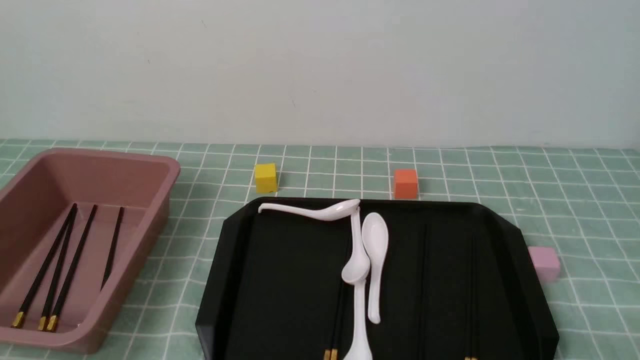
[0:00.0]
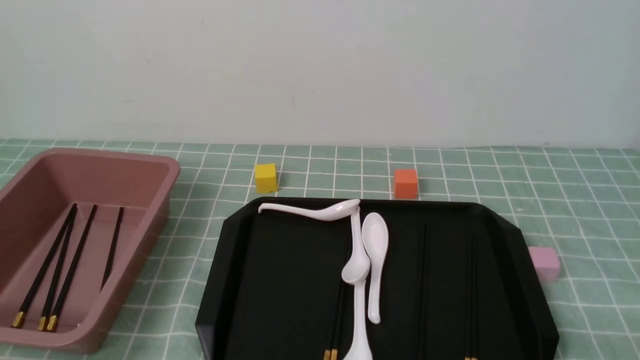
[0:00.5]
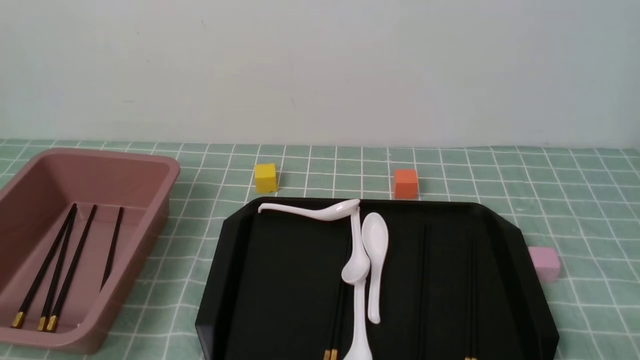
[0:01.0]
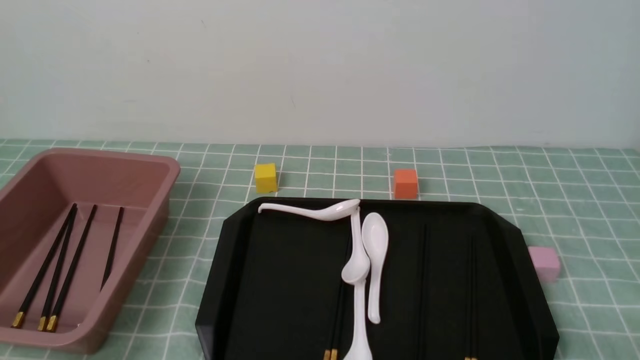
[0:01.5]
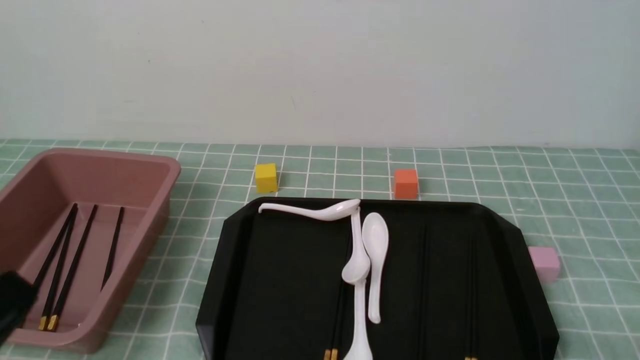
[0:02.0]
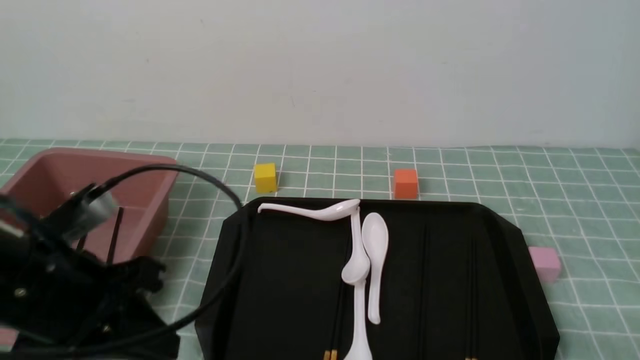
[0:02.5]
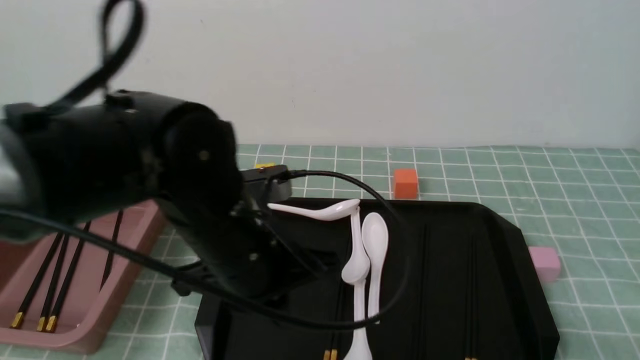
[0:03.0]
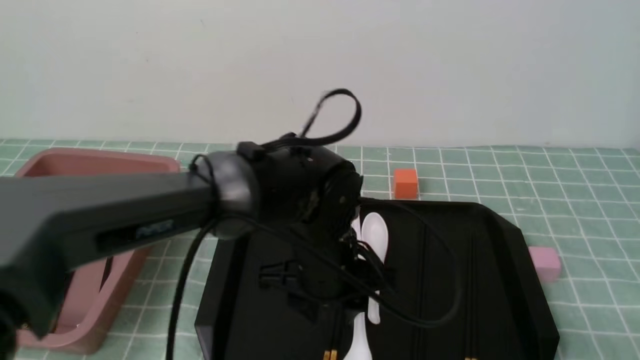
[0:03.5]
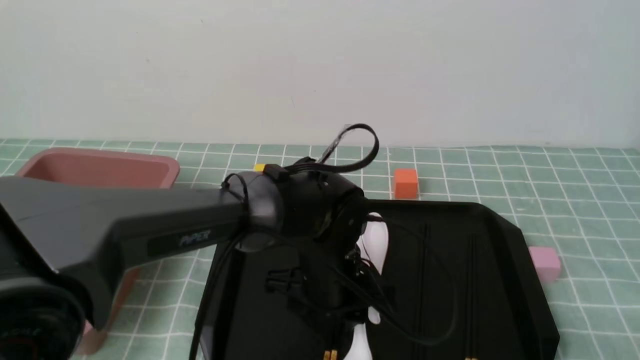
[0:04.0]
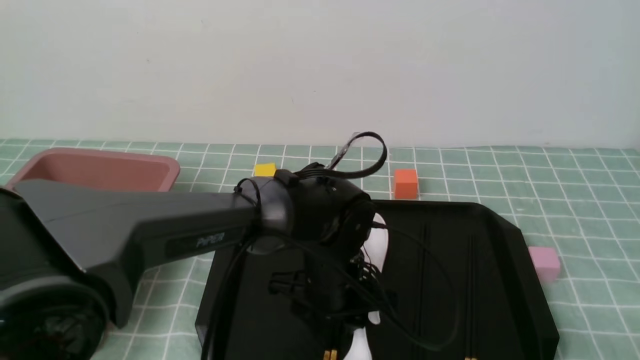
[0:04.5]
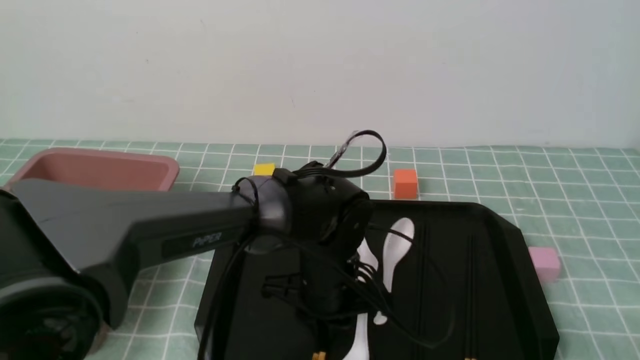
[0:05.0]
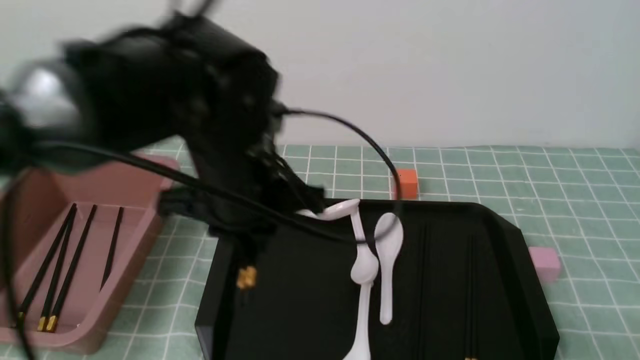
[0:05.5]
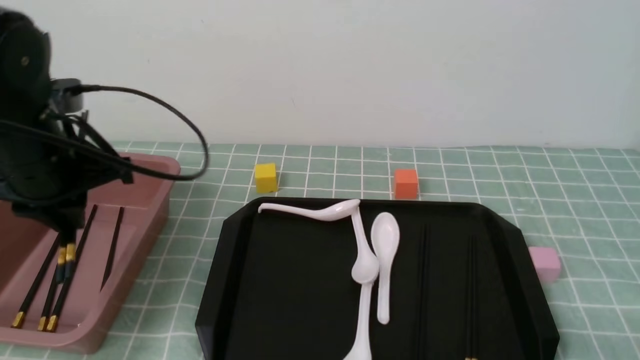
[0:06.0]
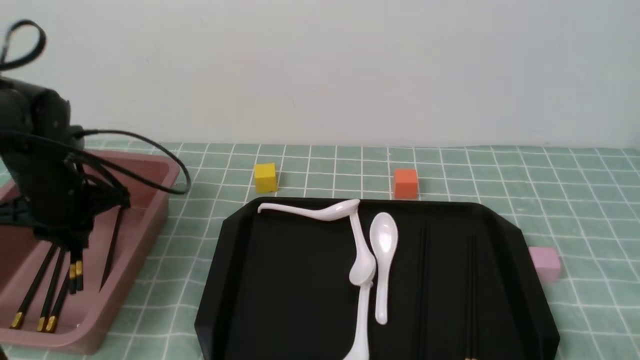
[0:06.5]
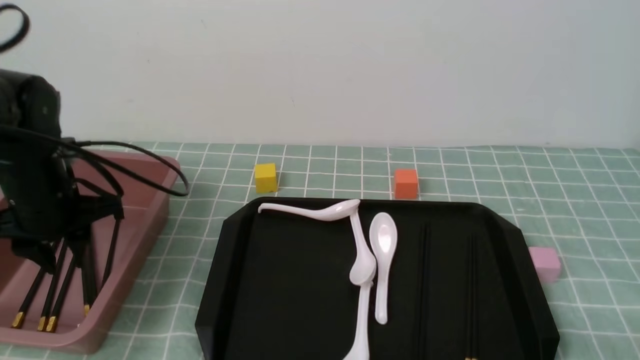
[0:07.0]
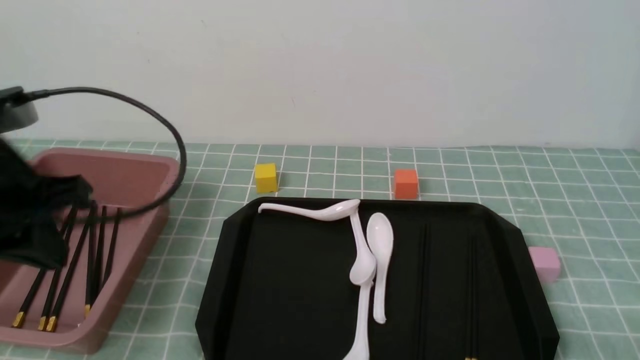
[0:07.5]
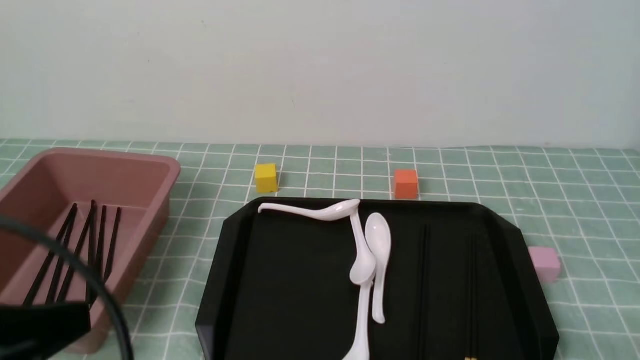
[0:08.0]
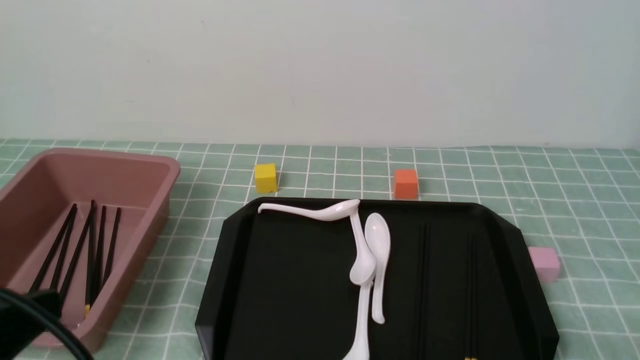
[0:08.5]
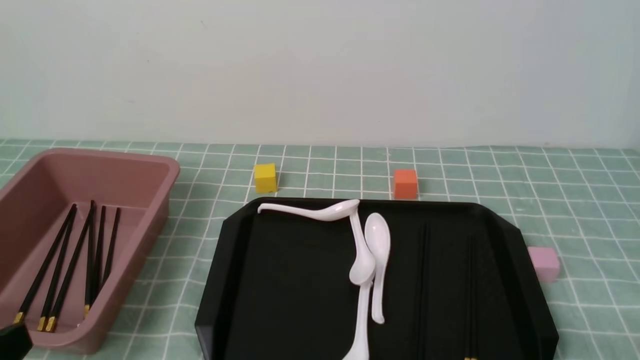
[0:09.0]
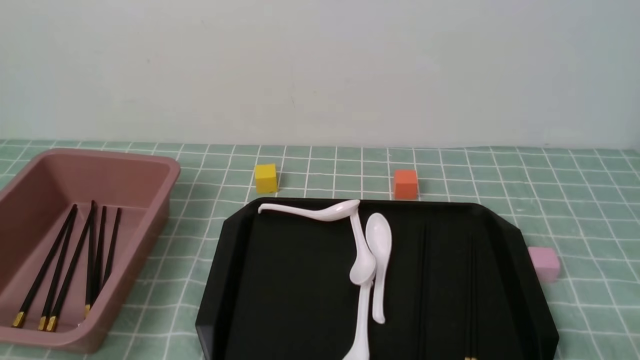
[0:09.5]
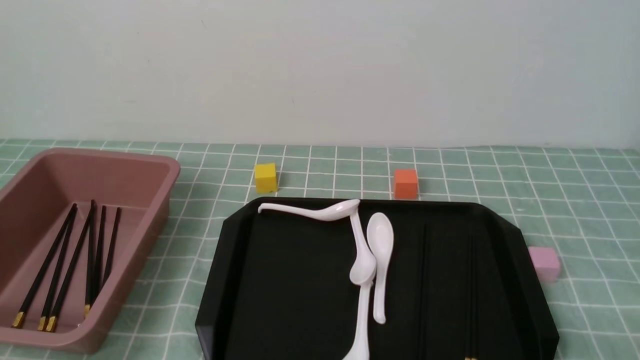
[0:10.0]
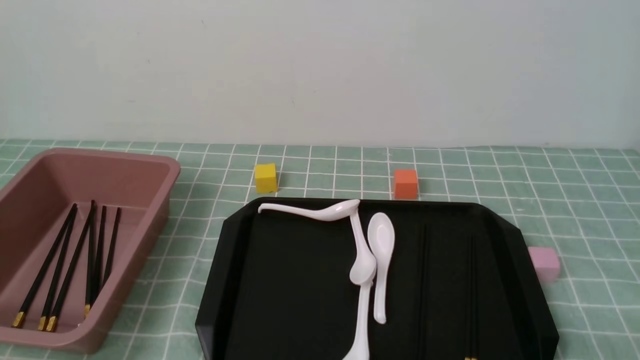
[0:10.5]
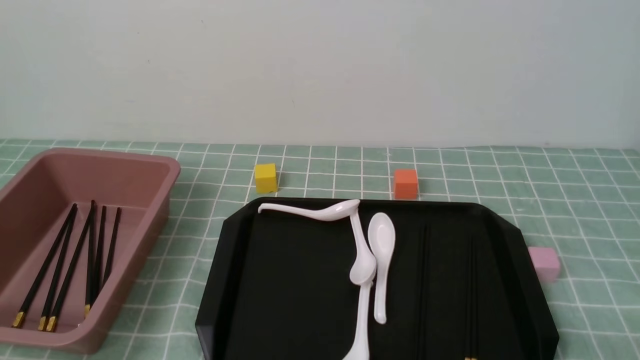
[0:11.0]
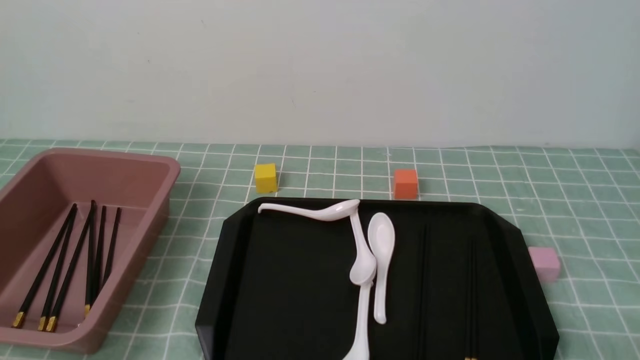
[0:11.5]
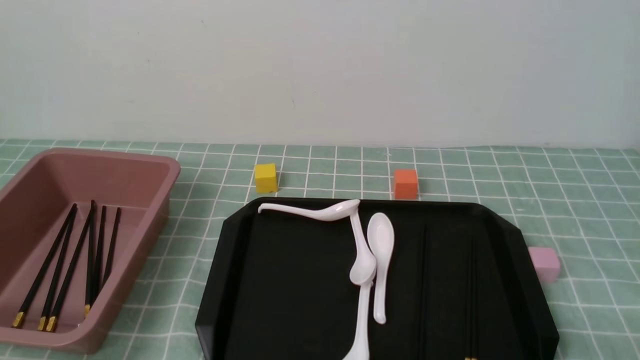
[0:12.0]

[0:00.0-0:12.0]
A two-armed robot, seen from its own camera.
Step, 0:00.0 to 0:05.0: use the left arm to grab a pair of chopsticks.
Step, 0:05.5 to 0:07.0: use the left arm to put the chopsticks into the lunch box.
0:00.0 to 0:02.0: The left gripper travels upward by approximately 10 cm.
0:02.0 to 0:04.0: The left gripper shifts roughly 35 cm forward, to the right and downward, and opens up.
0:04.0 to 0:06.0: The left gripper travels to the left and upward by approximately 30 cm, and closes.
0:06.0 to 0:08.0: The left gripper heads backward, covering some 25 cm.
0:08.0 to 0:10.0: The left gripper goes approximately 15 cm downward.
0:10.0 to 0:12.0: Both grippers stay put.
